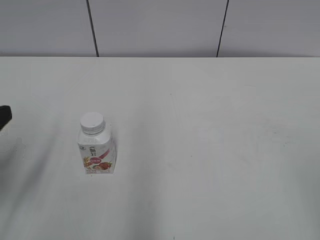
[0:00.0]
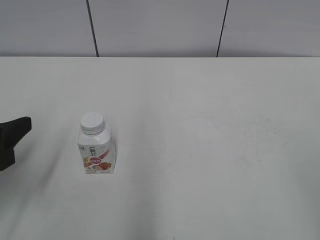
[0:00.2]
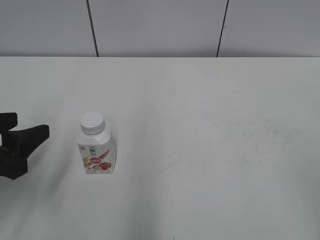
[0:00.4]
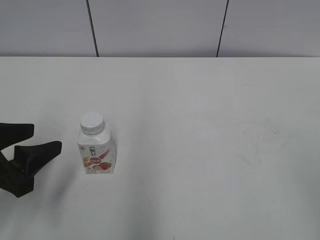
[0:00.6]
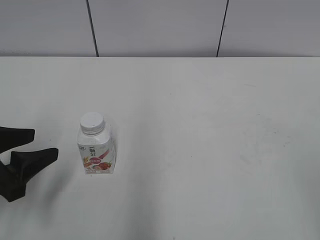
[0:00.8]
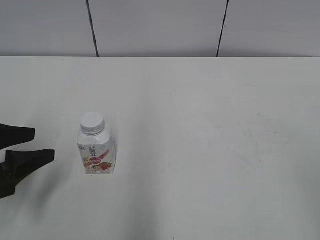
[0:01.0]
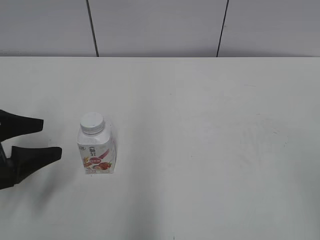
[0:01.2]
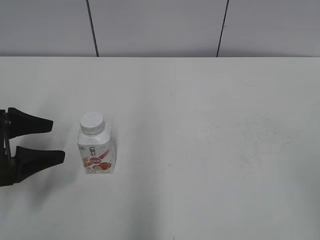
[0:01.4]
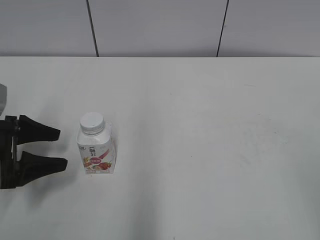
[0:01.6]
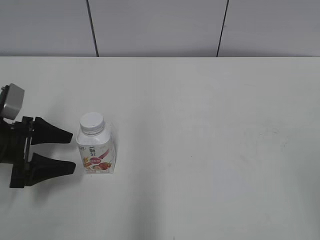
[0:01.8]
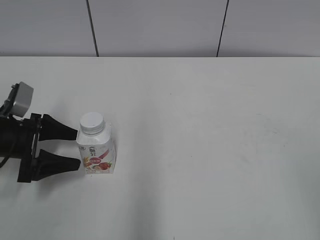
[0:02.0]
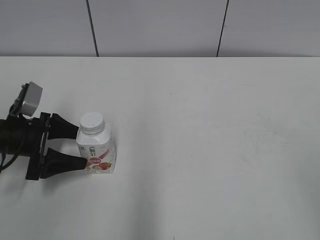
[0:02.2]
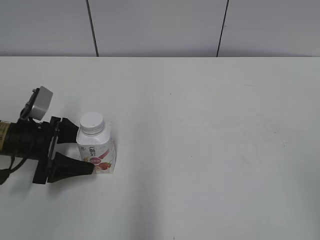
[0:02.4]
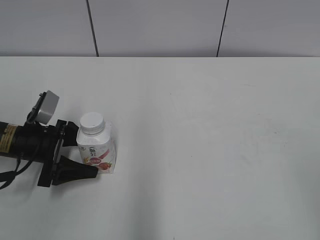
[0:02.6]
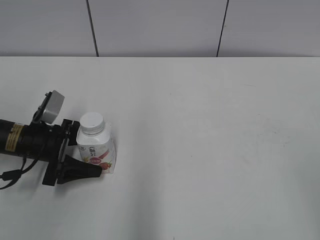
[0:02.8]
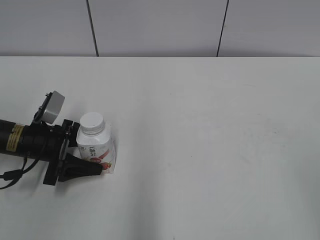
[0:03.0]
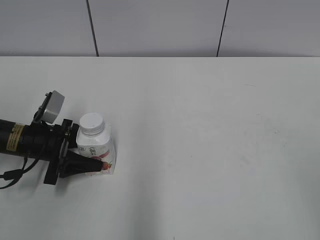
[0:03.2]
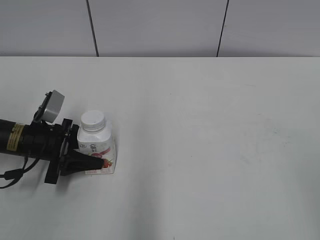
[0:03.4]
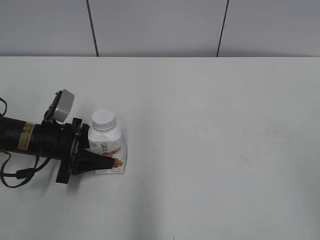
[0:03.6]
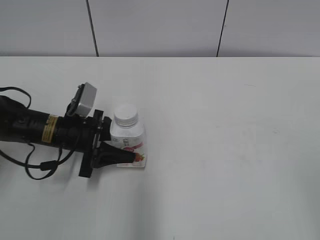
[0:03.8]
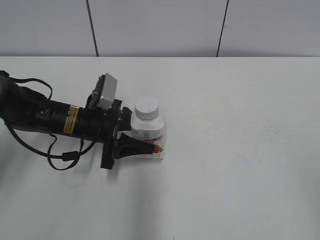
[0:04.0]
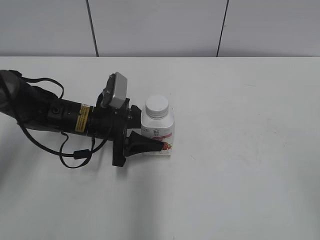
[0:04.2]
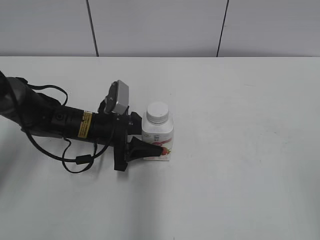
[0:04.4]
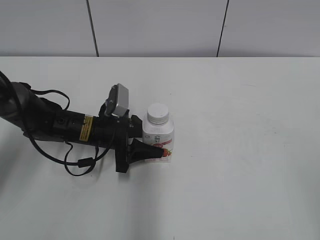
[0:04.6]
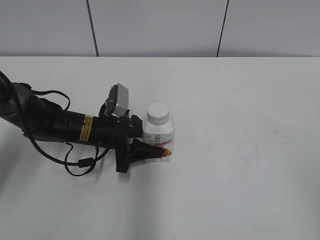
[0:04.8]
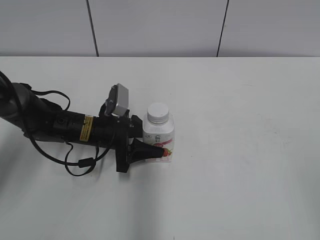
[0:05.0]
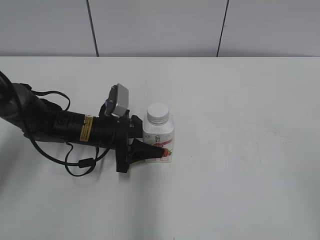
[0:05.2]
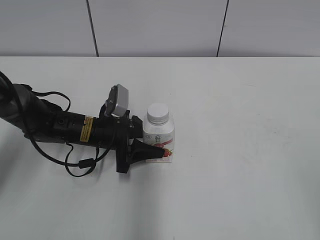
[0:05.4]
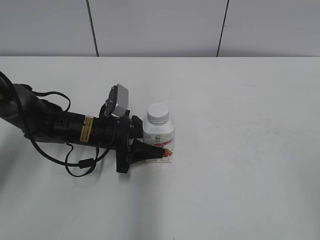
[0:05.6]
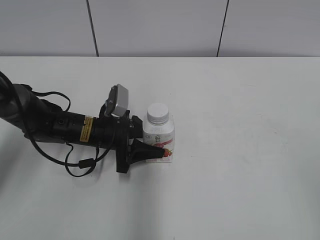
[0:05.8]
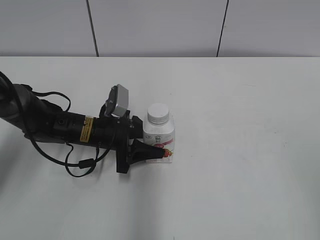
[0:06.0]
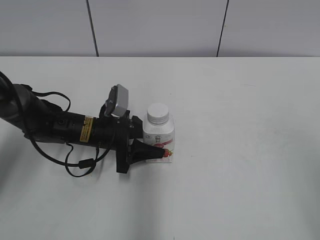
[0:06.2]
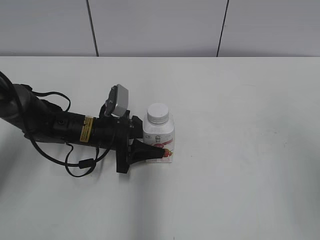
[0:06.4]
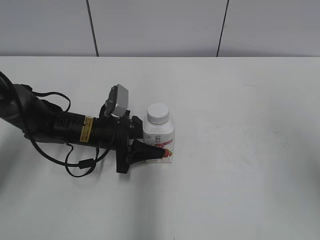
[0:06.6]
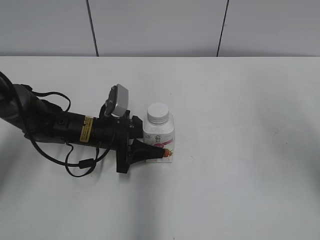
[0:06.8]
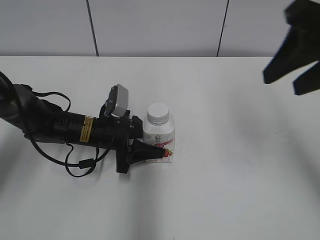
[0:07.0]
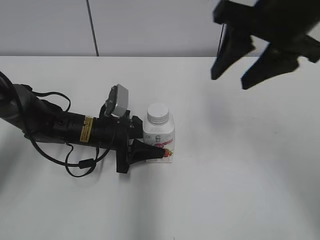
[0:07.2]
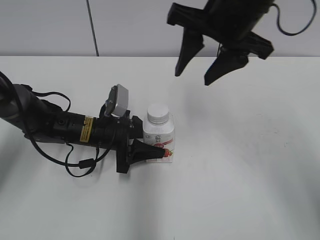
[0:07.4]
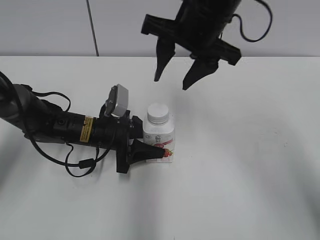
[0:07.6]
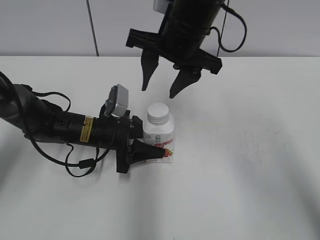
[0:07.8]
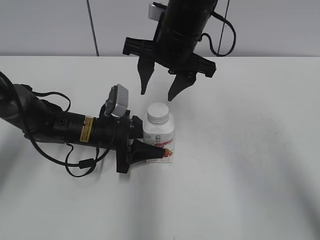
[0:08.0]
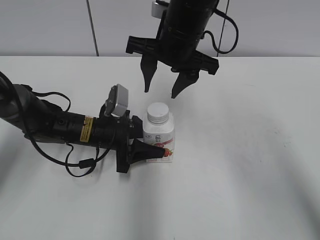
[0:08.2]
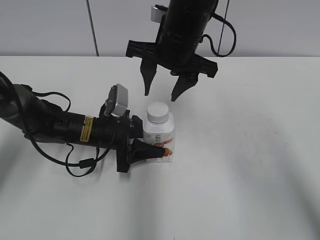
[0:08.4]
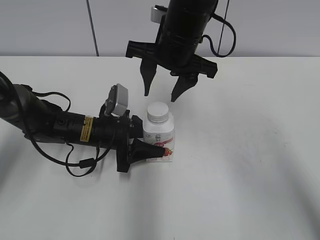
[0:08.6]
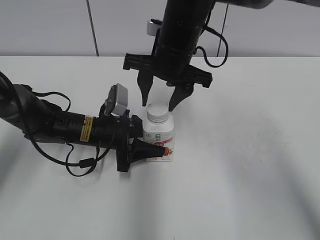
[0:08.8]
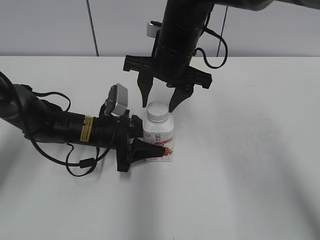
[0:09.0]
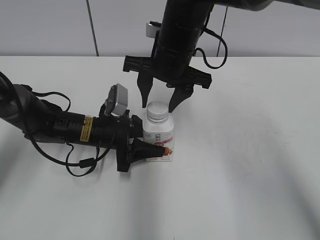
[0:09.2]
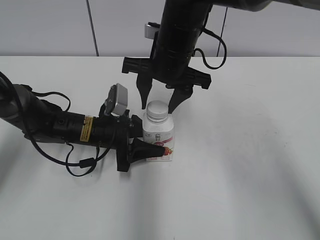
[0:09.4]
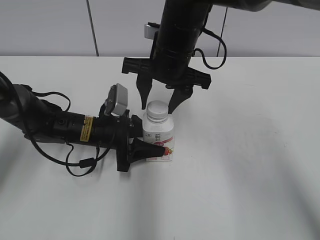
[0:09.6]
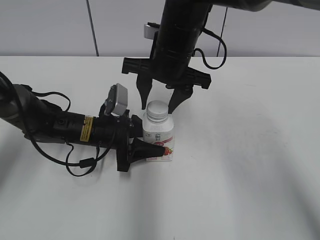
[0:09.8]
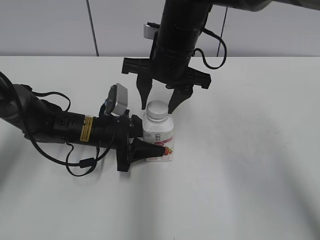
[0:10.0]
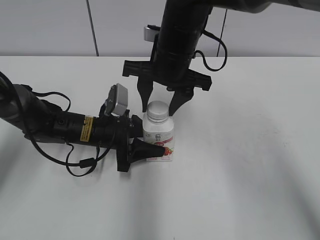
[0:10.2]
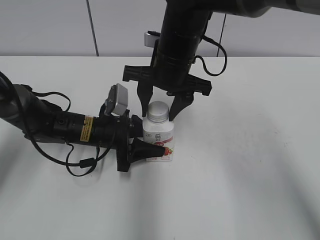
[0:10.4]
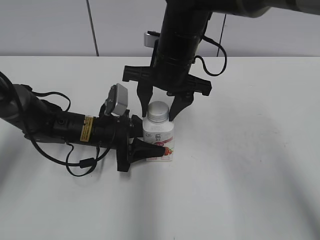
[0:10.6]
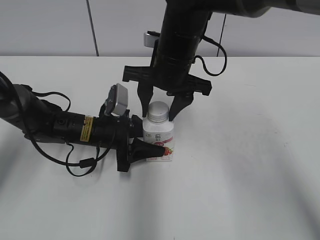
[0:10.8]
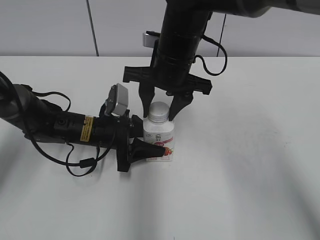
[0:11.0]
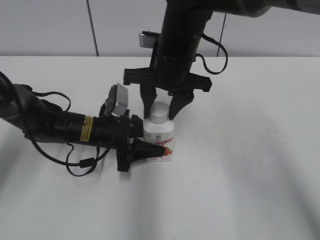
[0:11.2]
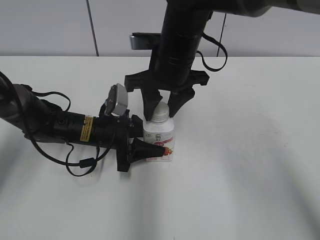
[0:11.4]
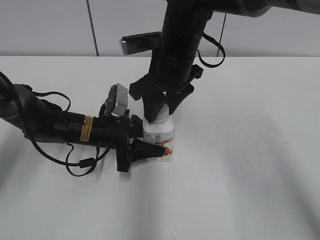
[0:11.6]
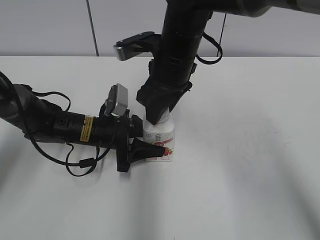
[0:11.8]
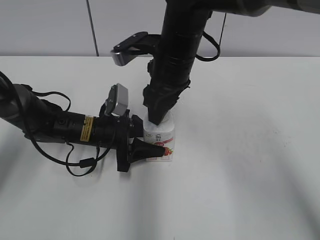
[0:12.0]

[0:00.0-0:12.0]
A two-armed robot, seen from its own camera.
Step, 0:00.0 to 0:03.4: Grab the Yili Changqing with the left hand.
Step, 0:03.6 to 0:05.8: Move the Yili Changqing from left to right.
0:00.0 to 0:01.6: The left gripper heads downward and forward, covering some 15 cm, and opens.
0:01.6 to 0:03.0: The left gripper moves downward and forward, some 10 cm.
0:03.0 to 0:04.4: The left gripper travels to the right by some 10 cm, and closes.
0:04.4 to 0:06.0: The grippers move only a little.
0:06.0 to 0:07.6: The right gripper shifts approximately 40 cm forward and to the left.
0:07.6 to 0:09.0: The right gripper goes roughly 5 cm downward.
0:09.0 to 0:10.4: Neither gripper changes place.

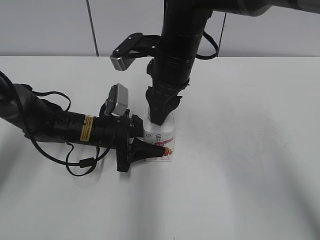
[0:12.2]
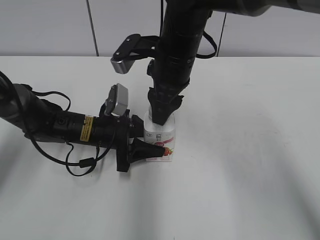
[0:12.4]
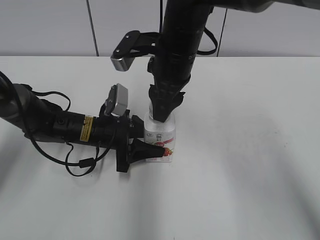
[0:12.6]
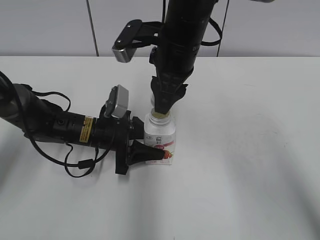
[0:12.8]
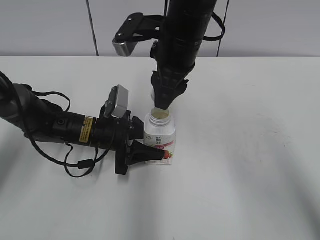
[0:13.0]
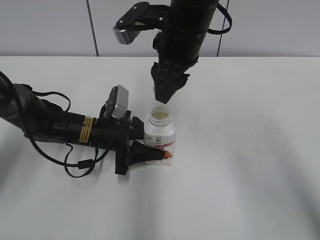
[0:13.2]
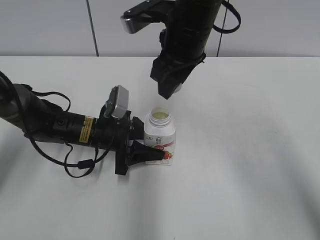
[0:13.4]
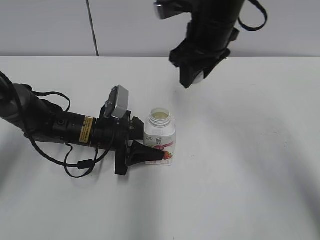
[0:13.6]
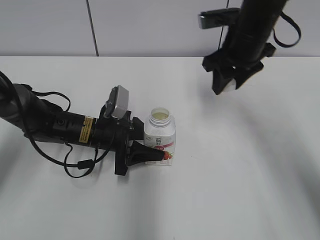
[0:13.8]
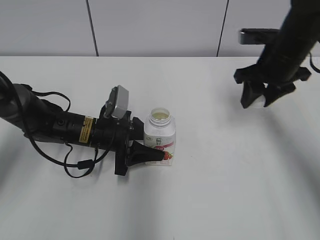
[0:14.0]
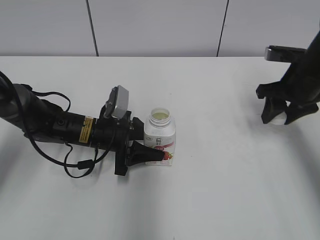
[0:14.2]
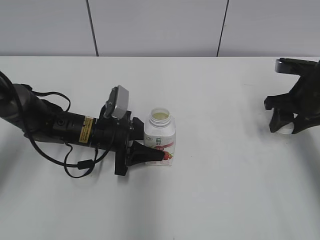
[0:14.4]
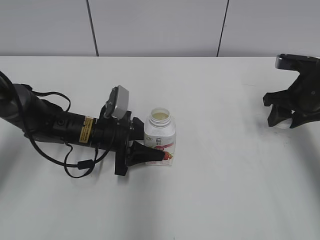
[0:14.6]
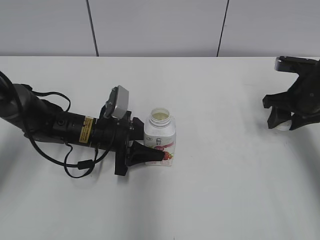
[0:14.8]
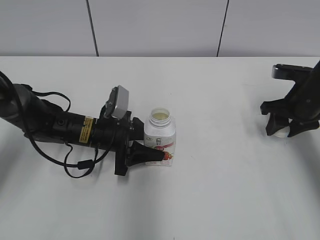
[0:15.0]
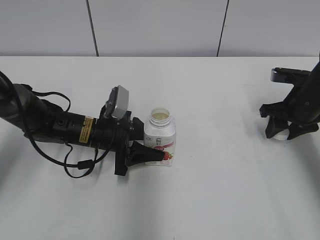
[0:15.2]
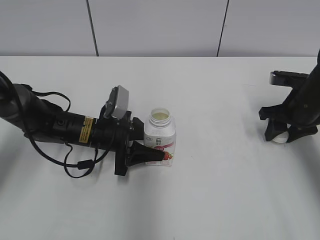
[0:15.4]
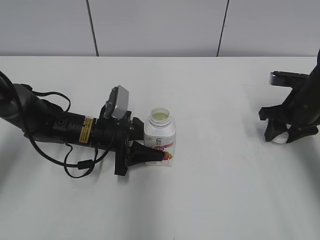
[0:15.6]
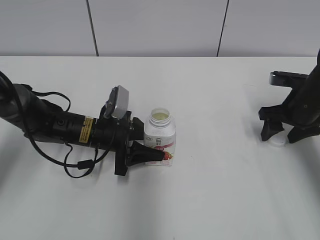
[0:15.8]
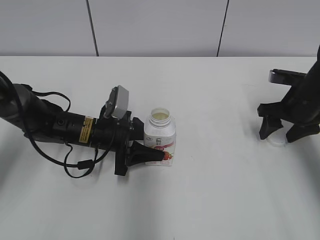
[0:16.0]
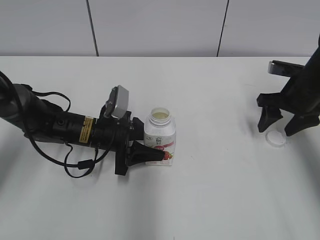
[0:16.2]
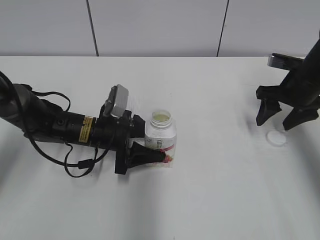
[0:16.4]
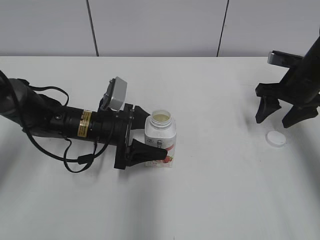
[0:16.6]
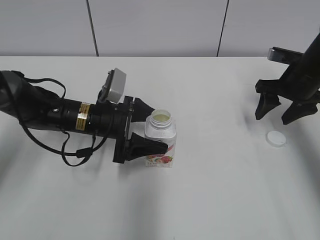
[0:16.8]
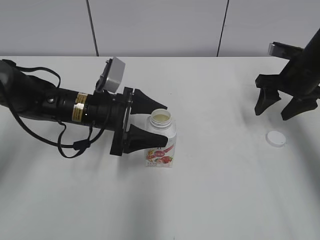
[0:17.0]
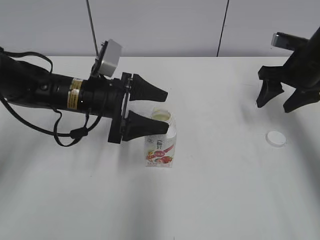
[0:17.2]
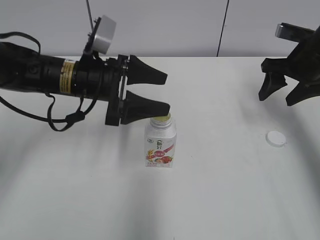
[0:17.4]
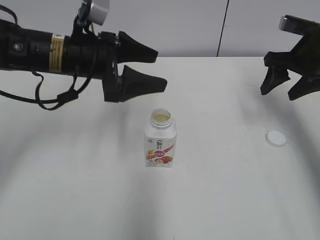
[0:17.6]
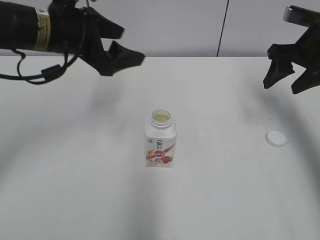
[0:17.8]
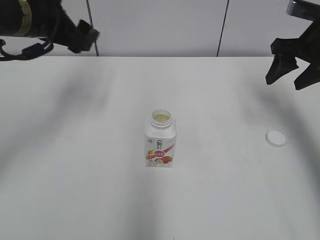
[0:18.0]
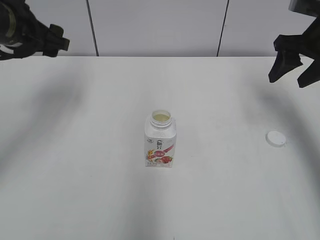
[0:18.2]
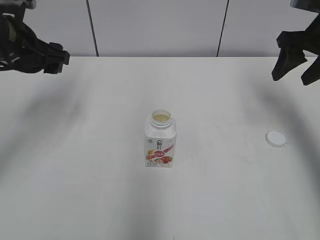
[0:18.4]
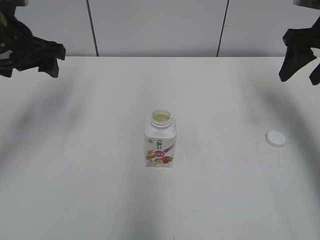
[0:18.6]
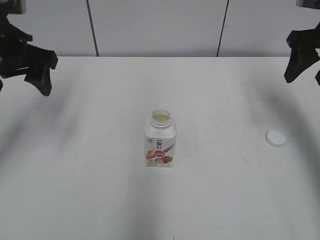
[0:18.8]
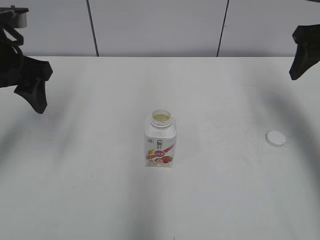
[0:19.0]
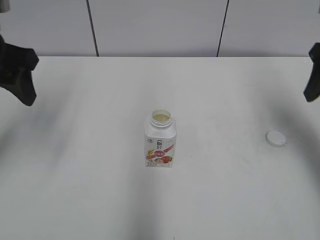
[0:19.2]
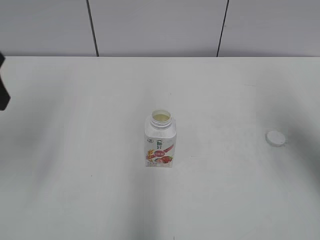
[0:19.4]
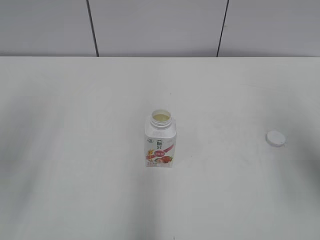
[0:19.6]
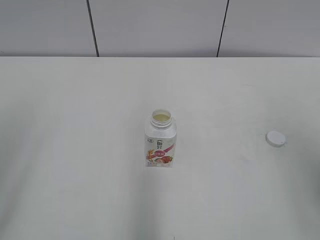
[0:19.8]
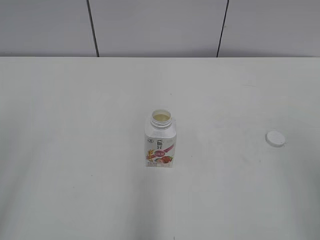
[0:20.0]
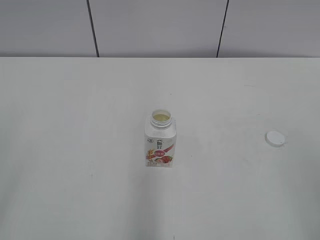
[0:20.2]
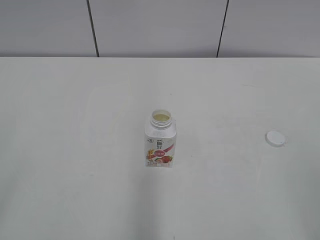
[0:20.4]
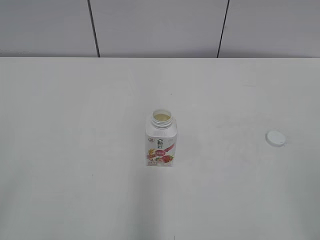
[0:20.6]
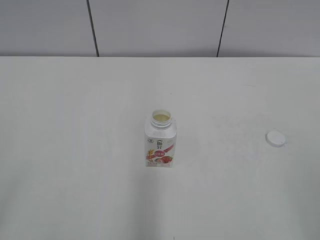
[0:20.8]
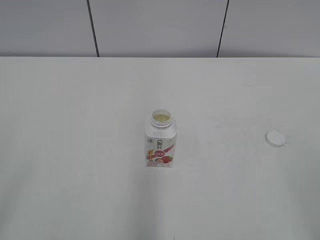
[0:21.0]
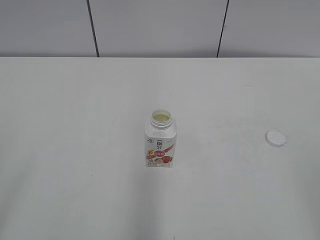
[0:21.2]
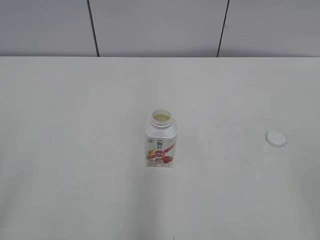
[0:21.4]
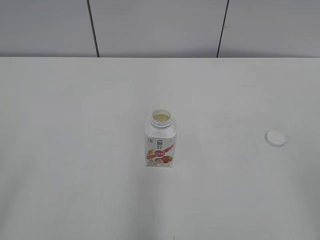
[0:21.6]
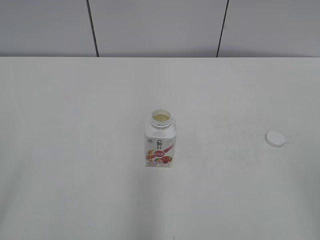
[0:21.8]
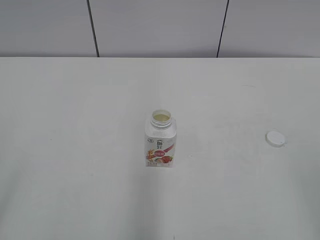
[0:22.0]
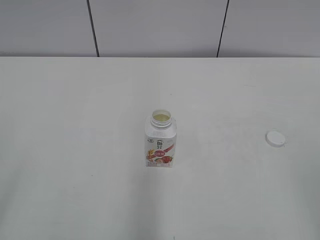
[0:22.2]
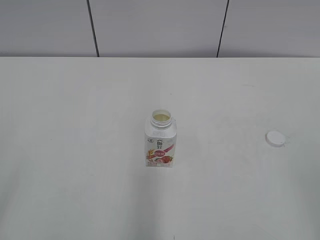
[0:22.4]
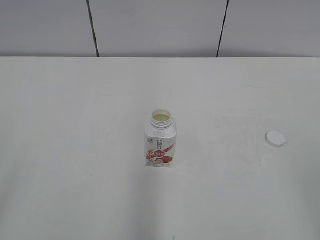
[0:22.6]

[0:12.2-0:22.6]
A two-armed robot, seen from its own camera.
Step, 0:13.2 to 0:16.2: Place the bottle cap on the right.
Step, 0:16.4 to 0:17.2: Place the Yili Changqing with the left hand.
0:12.2 to 0:13.6: The right gripper shifts by some 5 cm.
0:13.6 to 0:15.2: The right gripper heads to the right and downward, covering about 25 cm.
0:15.2 to 0:16.6: The left gripper opens up. Meanwhile the right gripper opens.
0:16.6 to 0:18.2: The right gripper goes about 10 cm upward, while the left gripper is displaced upward and to the left by roughly 25 cm.
0:18.2 to 0:19.6: The two grippers go approximately 20 cm backward. The left gripper closes up.
0:19.6 to 0:21.2: The right gripper heads backward, covering about 20 cm.
